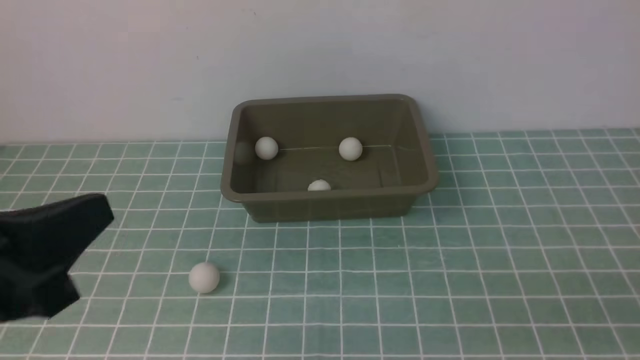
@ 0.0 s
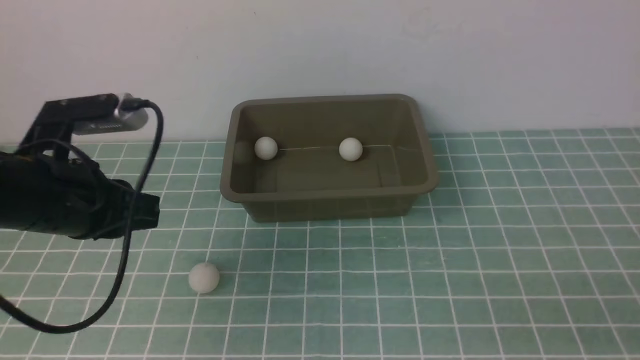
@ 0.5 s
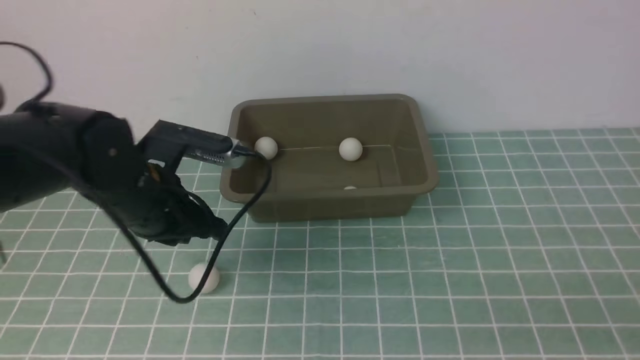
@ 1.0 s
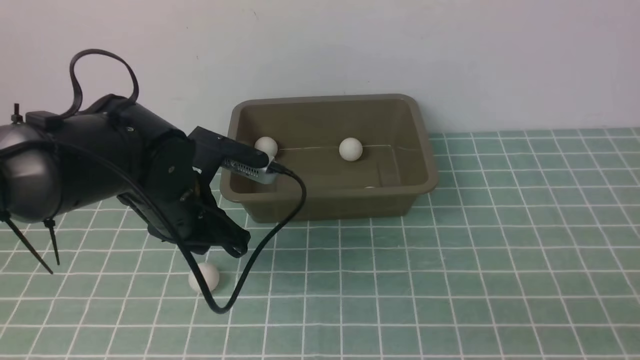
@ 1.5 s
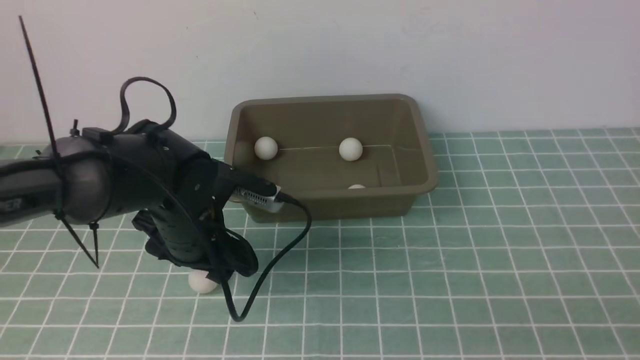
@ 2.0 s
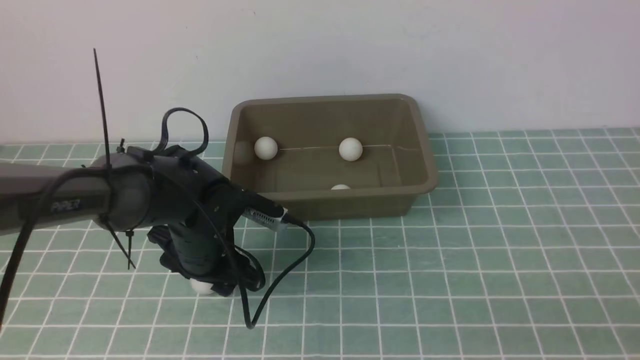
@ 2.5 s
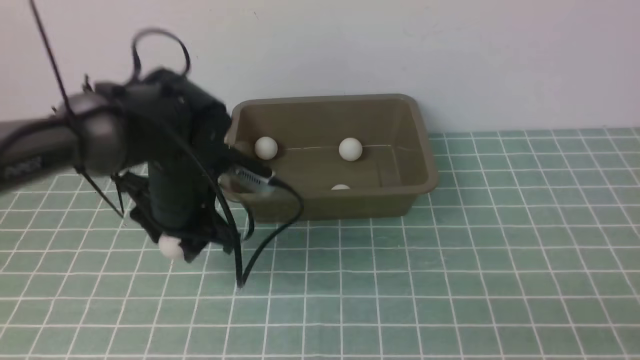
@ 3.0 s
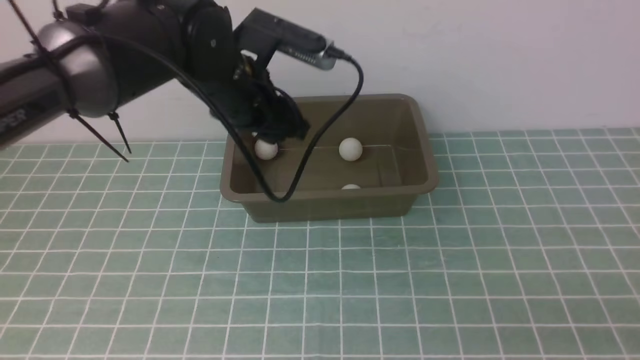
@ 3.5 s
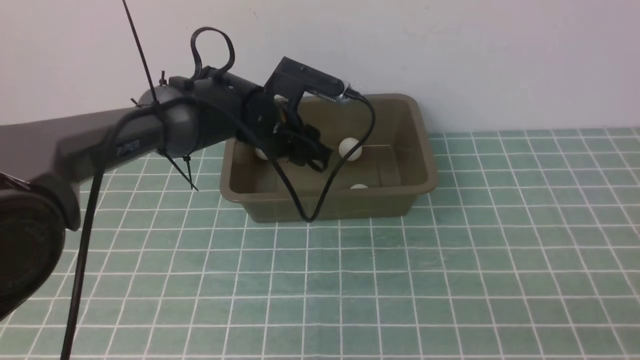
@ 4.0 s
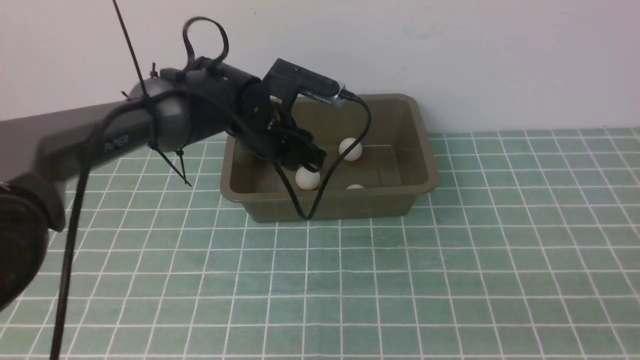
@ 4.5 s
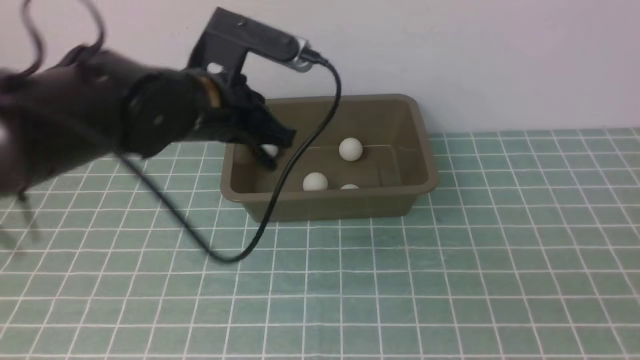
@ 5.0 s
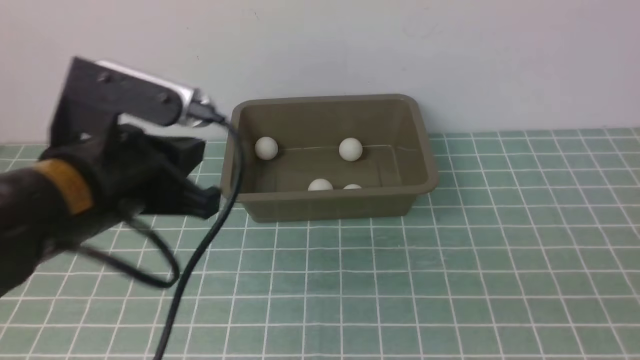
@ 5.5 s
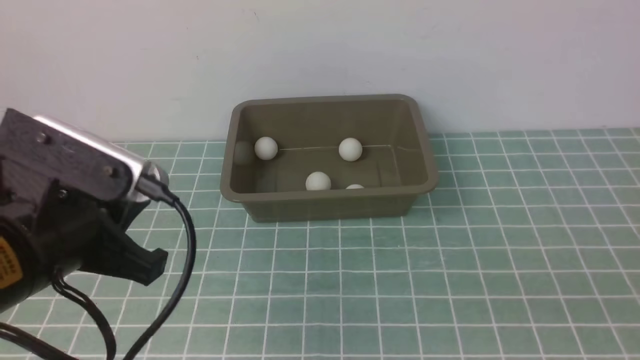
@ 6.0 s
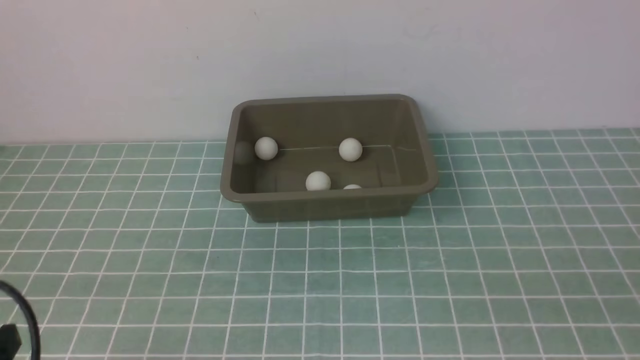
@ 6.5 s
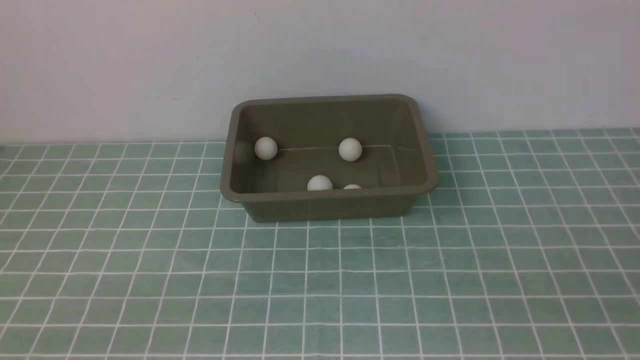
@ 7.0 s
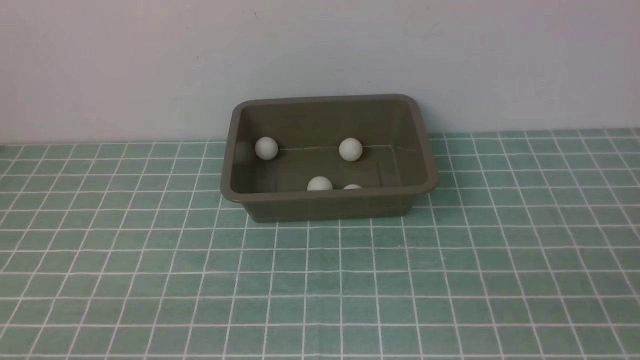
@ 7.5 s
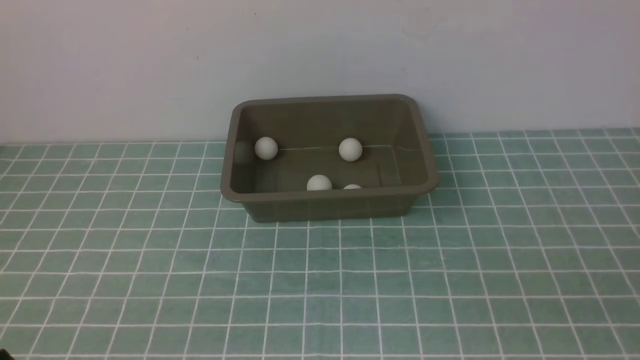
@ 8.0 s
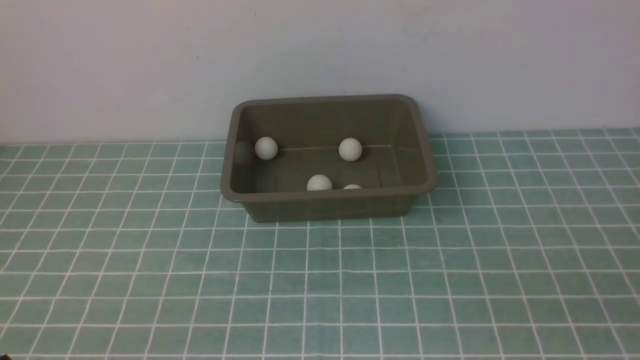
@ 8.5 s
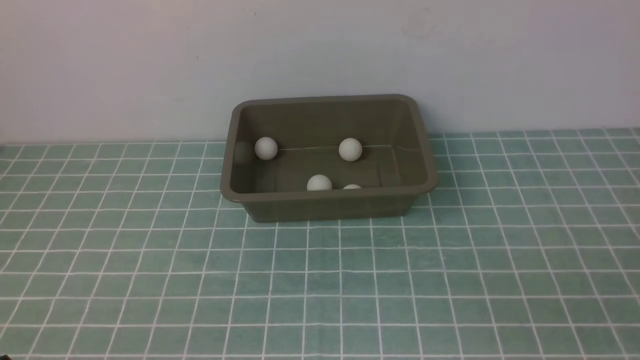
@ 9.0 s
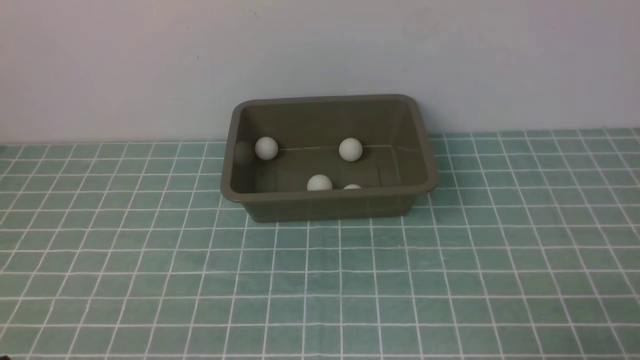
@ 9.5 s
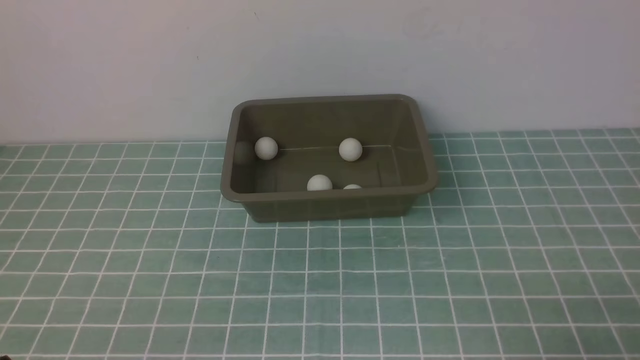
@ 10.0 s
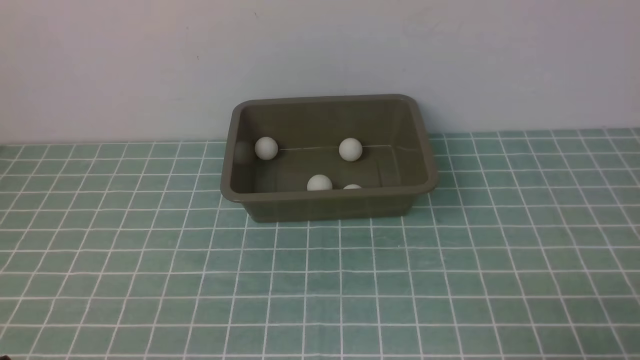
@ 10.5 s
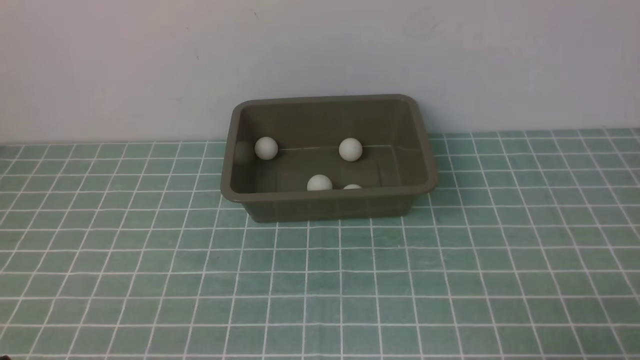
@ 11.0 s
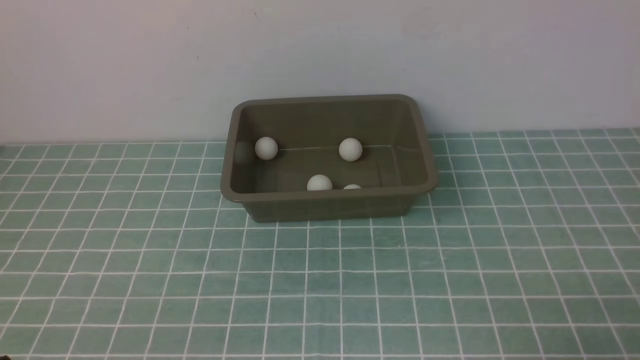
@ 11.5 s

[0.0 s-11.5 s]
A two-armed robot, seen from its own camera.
Step, 0.0 to 3.0 s: use the left arm to clamp the table tennis ball closest to it.
Step, 3.5 to 4.0 s: use the left arm to put the table tennis ball into the box.
0.0 to 2.0 s: The left gripper shifts some 30 cm forward, downward and to the right, and opens.
2.0 to 4.0 s: The left gripper goes some 15 cm forward, upward and to the right, and closes its fingers.
4.0 to 6.0 s: The left gripper is displaced backward and to the left by about 40 cm, and closes its fingers.
6.0 to 7.5 s: The left gripper is displaced downward by about 10 cm.
9.5 to 11.5 s: The two grippers keep their place.

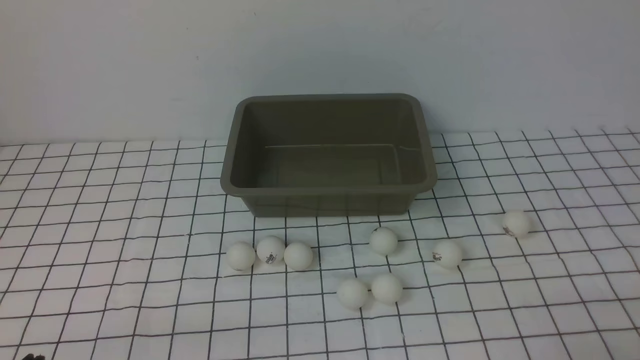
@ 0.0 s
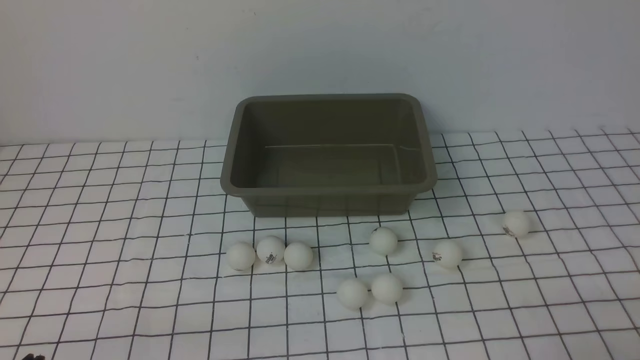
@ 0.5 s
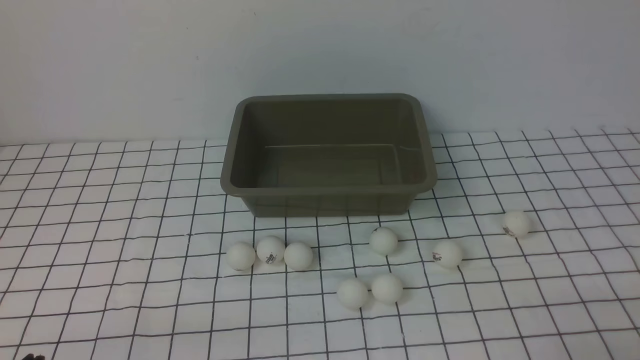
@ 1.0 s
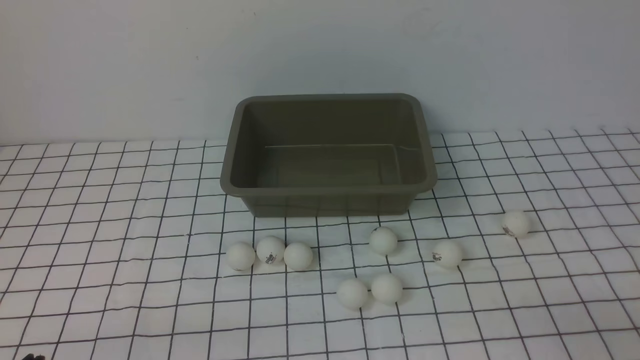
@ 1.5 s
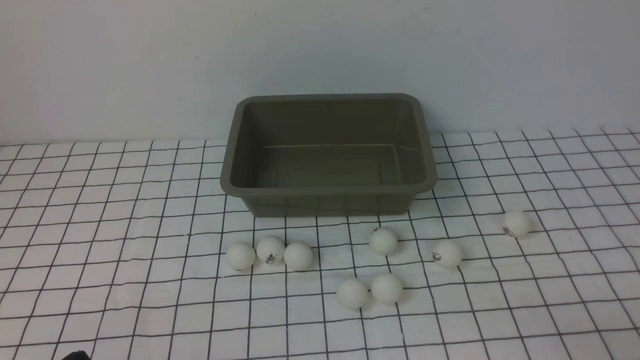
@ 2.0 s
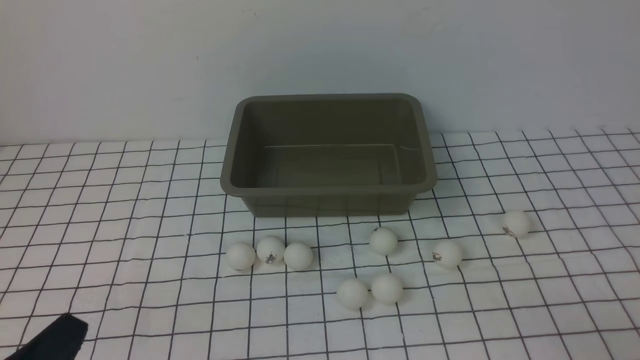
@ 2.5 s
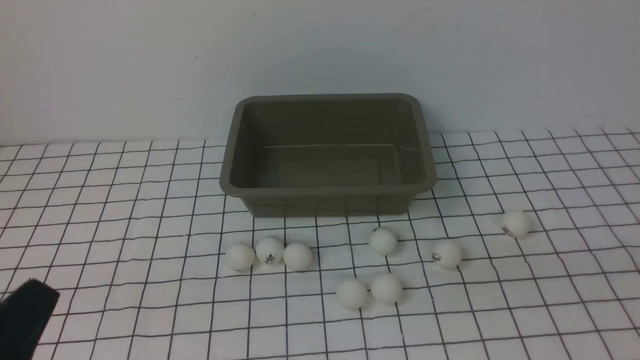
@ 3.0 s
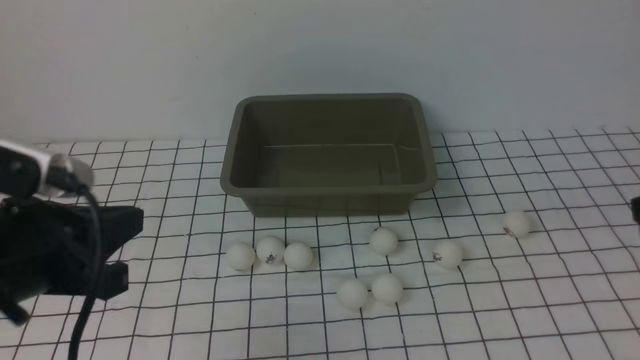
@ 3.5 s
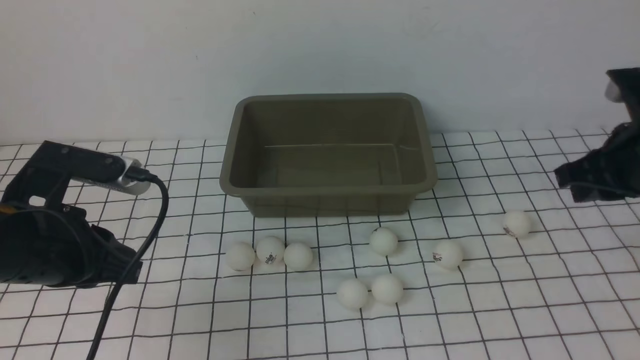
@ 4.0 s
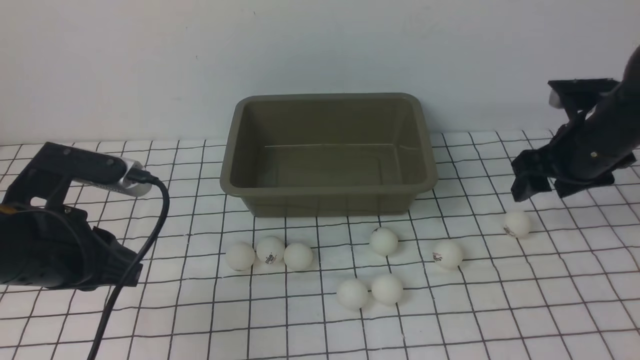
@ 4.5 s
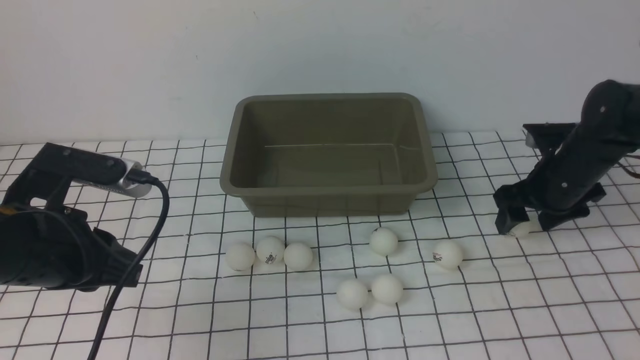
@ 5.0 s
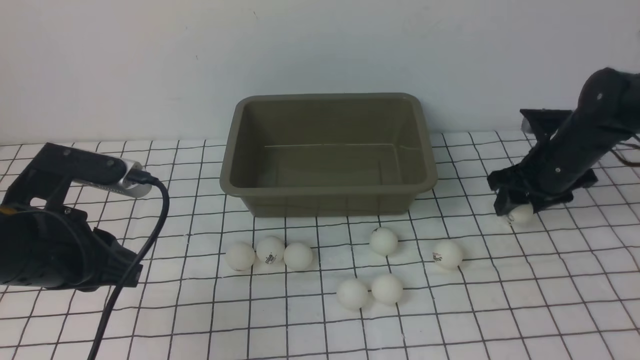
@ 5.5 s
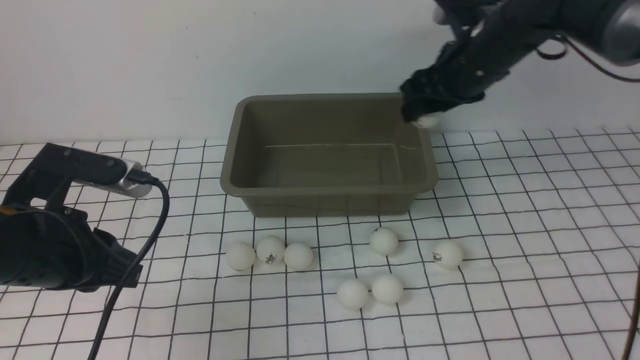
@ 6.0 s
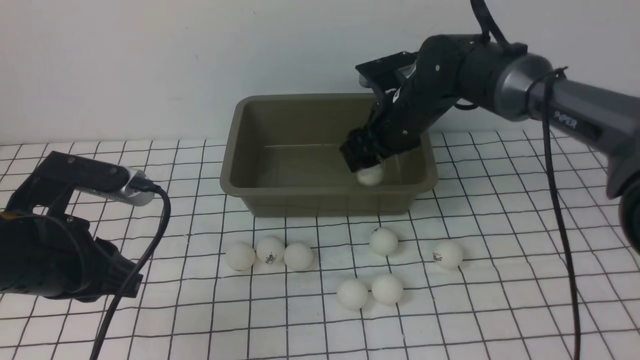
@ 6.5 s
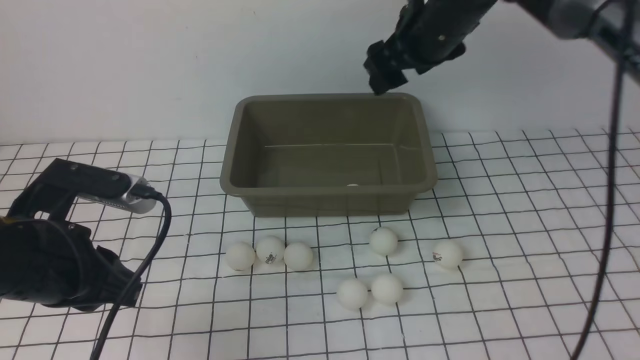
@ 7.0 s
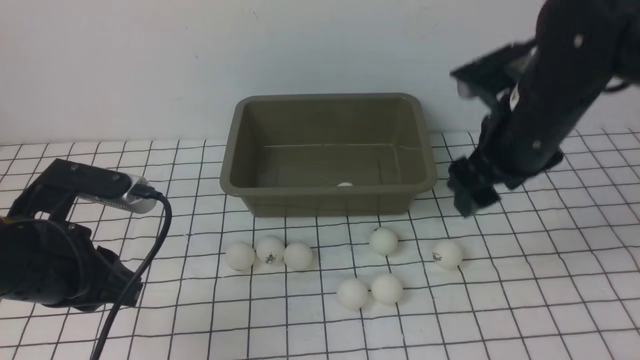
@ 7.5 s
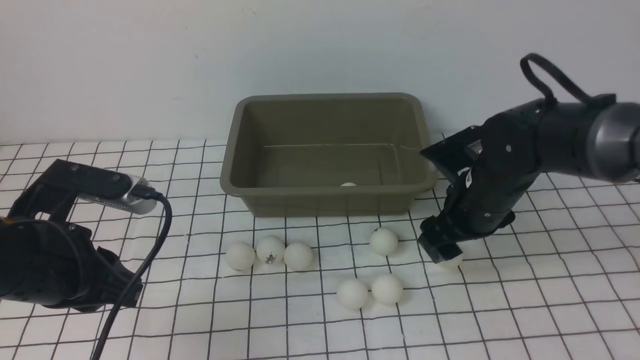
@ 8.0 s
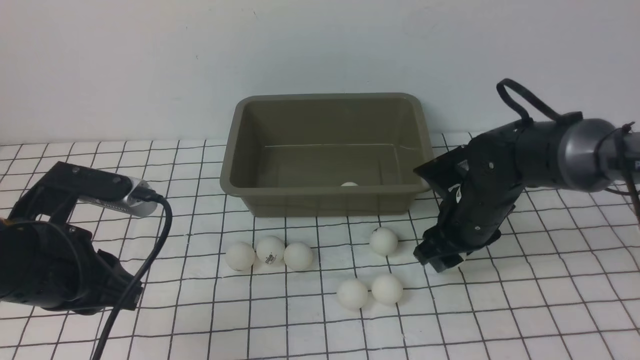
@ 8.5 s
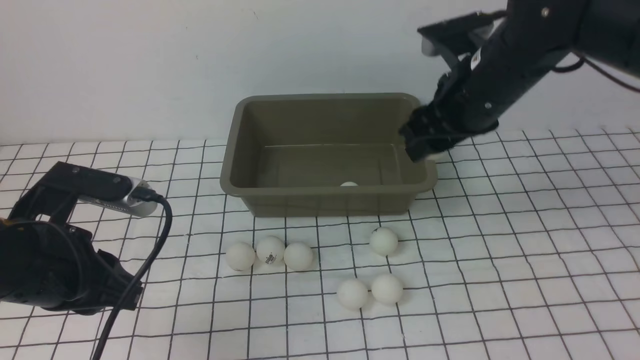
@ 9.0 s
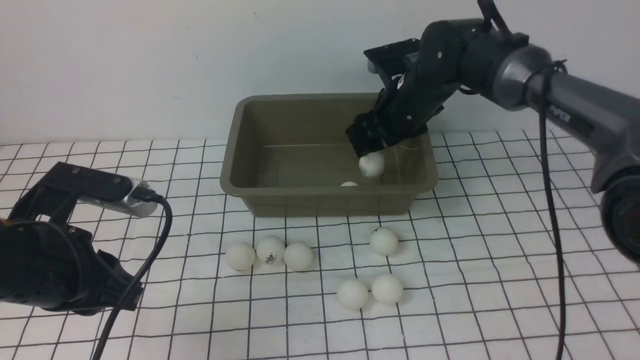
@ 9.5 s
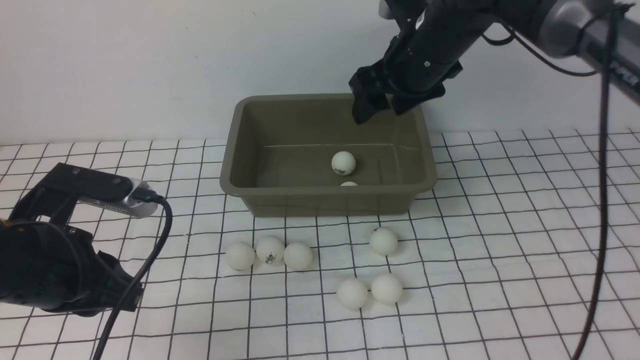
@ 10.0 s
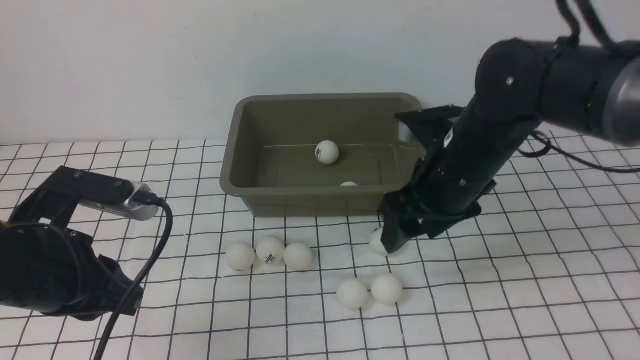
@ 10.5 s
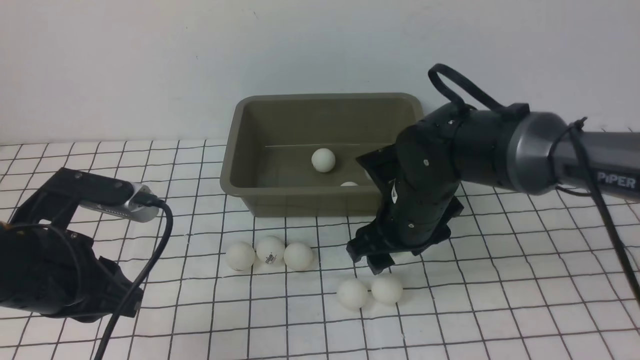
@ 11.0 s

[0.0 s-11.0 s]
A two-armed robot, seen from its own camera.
Step, 0.0 to 5.5 s: use the right arm to clamp the table tennis ball closest to it.
Step, 6.0 to 6.5 s: use the right arm to put the table tennis ball into the box.
Step, 7.0 to 8.5 s: use the right arm to clamp the table tennis ball closest to it.
Step, 9.0 to 9.5 s: use the right arm to put the table tennis ball into the box.
2.0 to 3.5 s: The grippers both shift forward and upward by about 20 cm.
3.5 to 5.5 s: The right gripper heads forward and downward, covering approximately 15 cm, and opens.
5.5 to 7.5 s: The right gripper travels backward, to the left and upward by about 15 cm.
7.5 to 9.0 s: The right gripper travels downward and back again, about 15 cm each way.
9.0 to 11.0 s: The right gripper heads downward, to the left and backward, covering some 10 cm.
